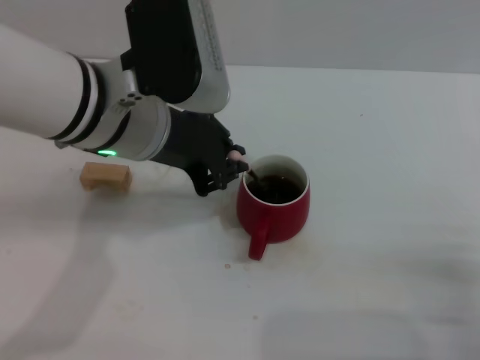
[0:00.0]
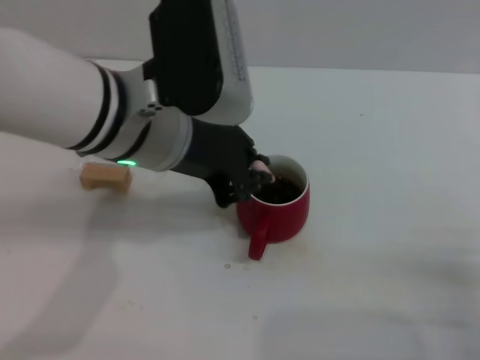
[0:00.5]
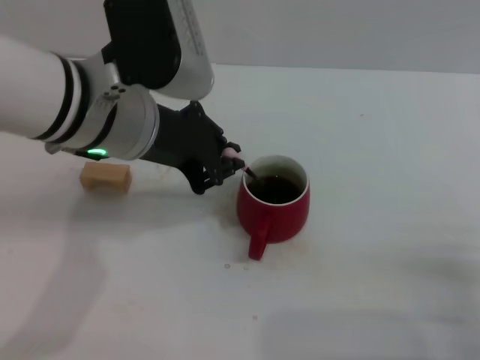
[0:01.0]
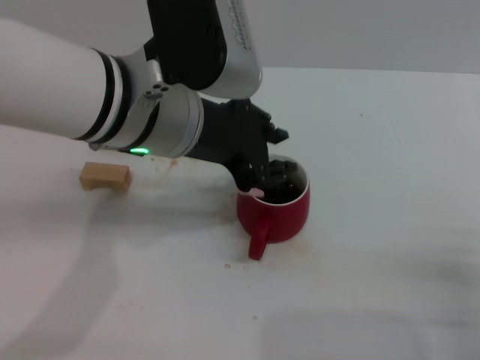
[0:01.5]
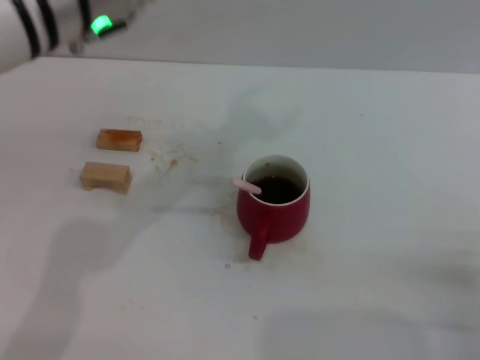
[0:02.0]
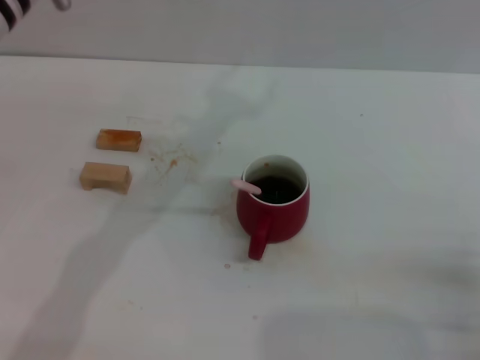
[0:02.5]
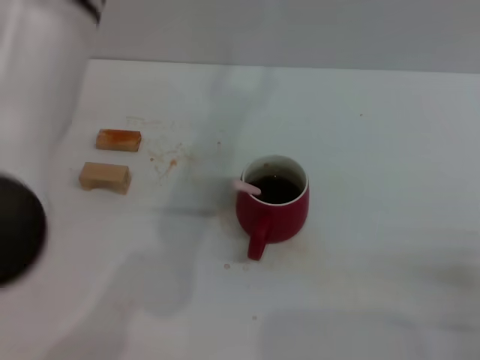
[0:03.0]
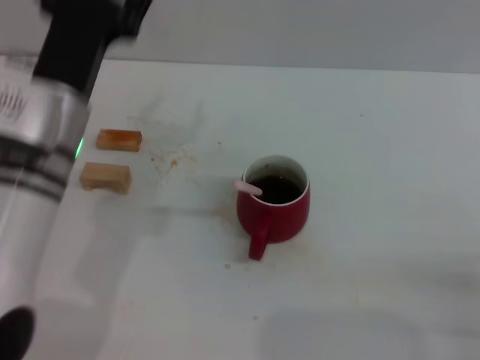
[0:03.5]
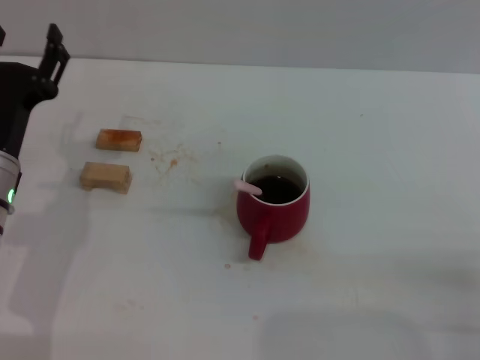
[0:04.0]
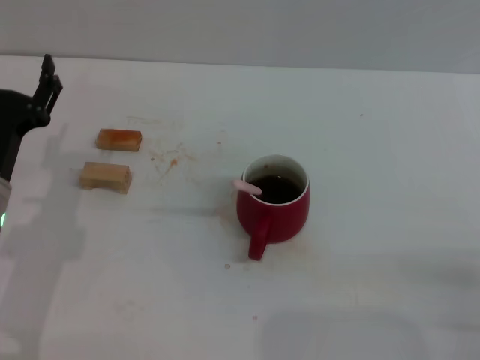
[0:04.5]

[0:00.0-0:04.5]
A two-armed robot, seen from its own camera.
Task of the whole recording: Move the red cup to the center, lift the pink spoon, stir it three times in the cup, and put the spoon into the cup.
0:00.0 to 0:02.0: The left gripper goes roughly 5 cm upward, and opens up.
0:02.0 to 0:04.5: The left gripper travels downward and to the left by some 25 cm.
